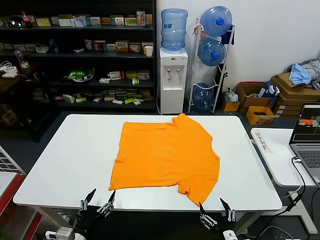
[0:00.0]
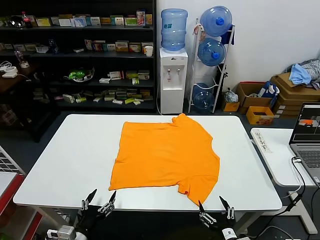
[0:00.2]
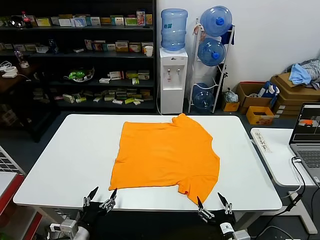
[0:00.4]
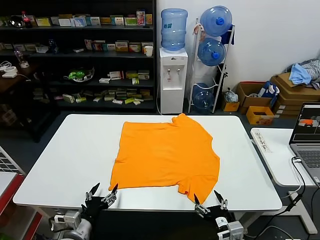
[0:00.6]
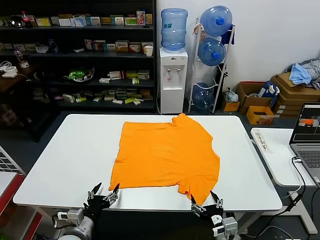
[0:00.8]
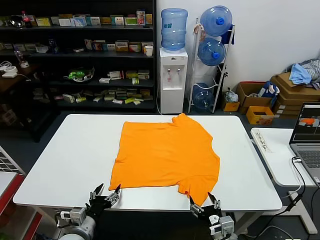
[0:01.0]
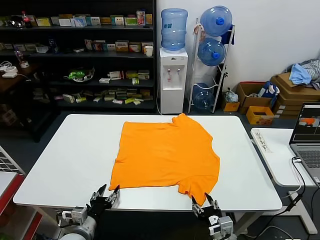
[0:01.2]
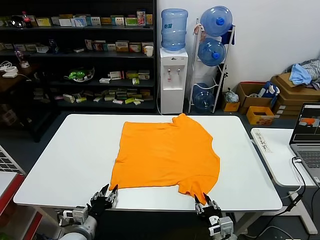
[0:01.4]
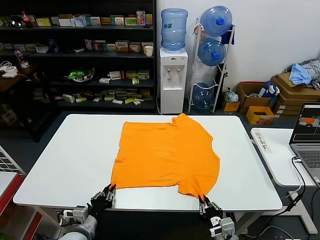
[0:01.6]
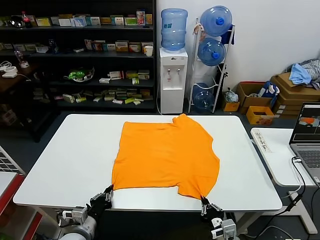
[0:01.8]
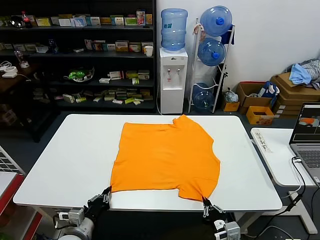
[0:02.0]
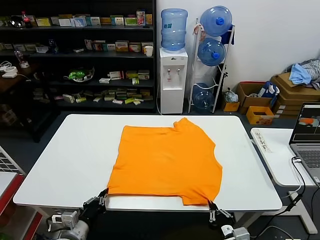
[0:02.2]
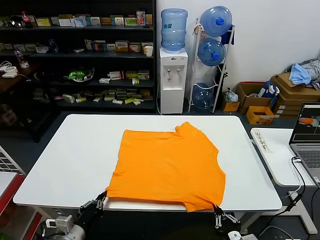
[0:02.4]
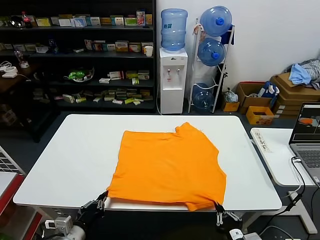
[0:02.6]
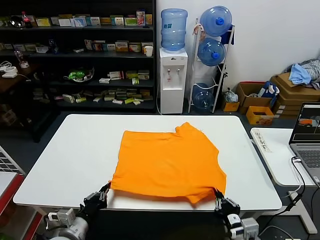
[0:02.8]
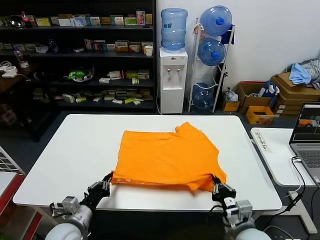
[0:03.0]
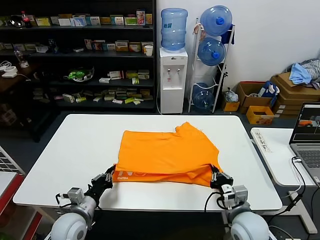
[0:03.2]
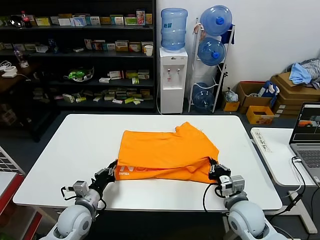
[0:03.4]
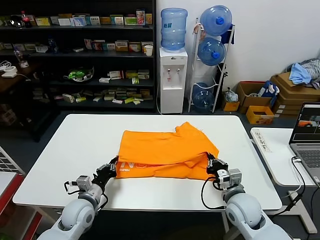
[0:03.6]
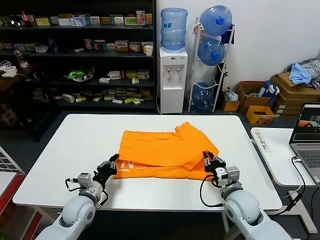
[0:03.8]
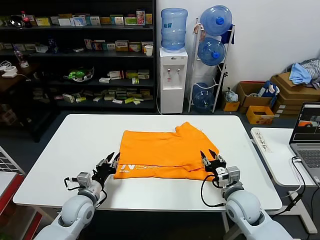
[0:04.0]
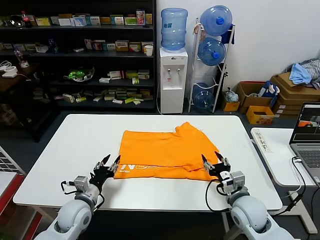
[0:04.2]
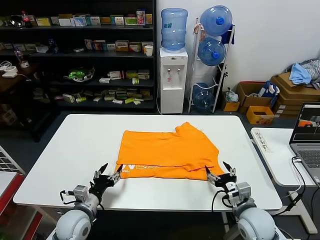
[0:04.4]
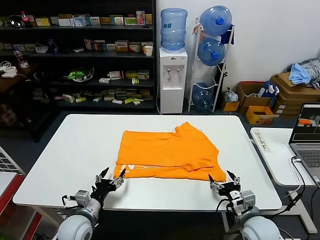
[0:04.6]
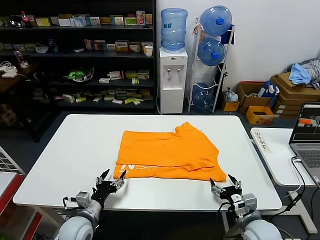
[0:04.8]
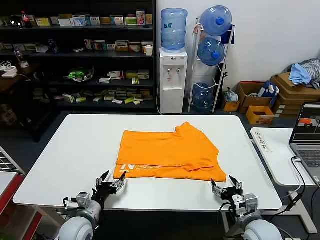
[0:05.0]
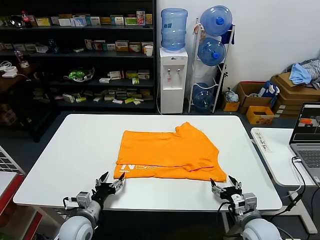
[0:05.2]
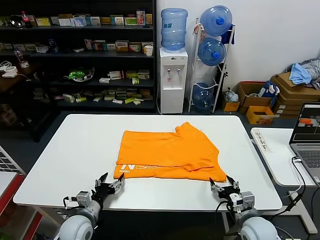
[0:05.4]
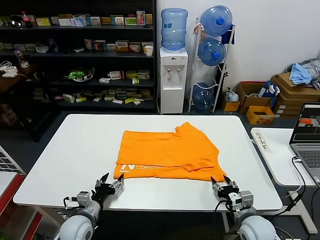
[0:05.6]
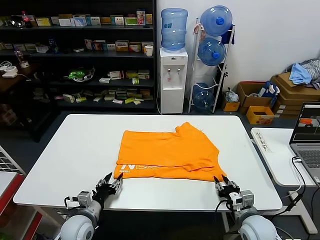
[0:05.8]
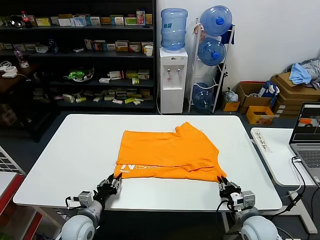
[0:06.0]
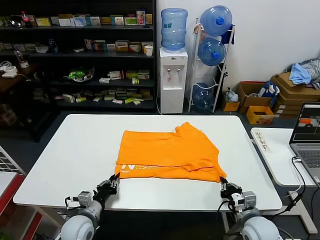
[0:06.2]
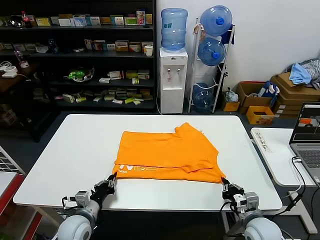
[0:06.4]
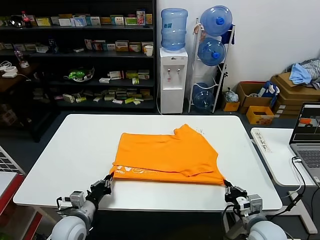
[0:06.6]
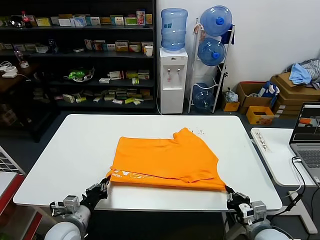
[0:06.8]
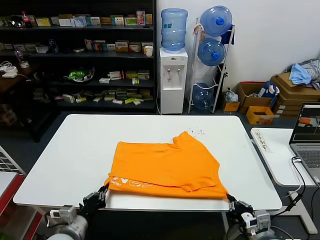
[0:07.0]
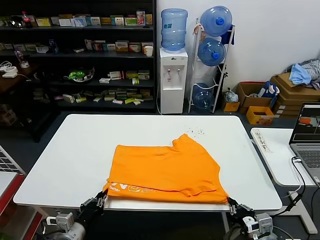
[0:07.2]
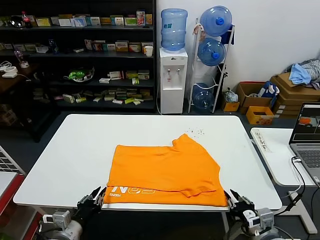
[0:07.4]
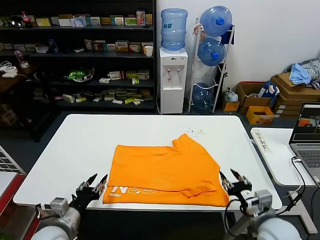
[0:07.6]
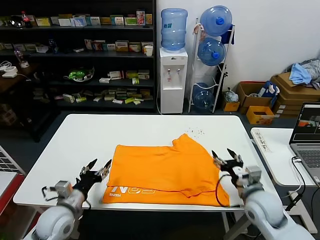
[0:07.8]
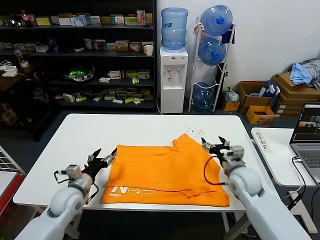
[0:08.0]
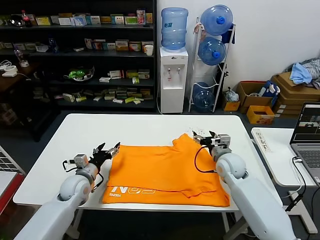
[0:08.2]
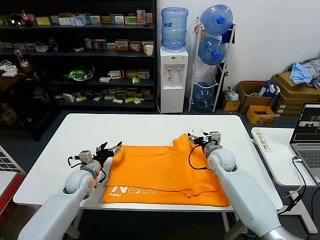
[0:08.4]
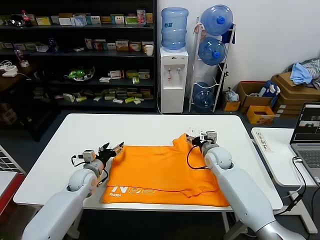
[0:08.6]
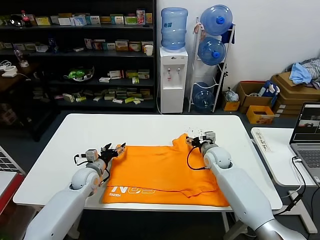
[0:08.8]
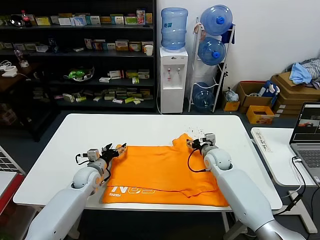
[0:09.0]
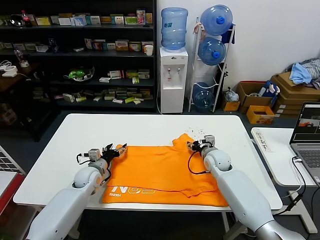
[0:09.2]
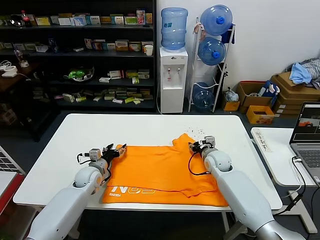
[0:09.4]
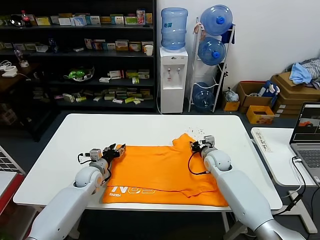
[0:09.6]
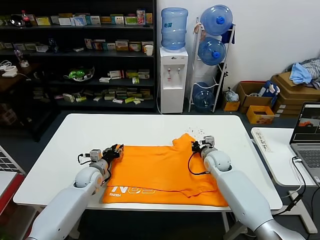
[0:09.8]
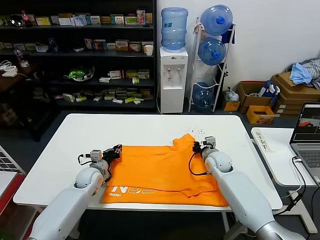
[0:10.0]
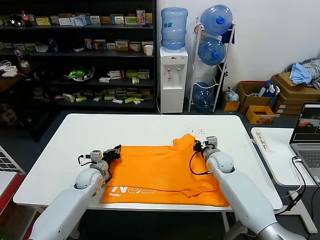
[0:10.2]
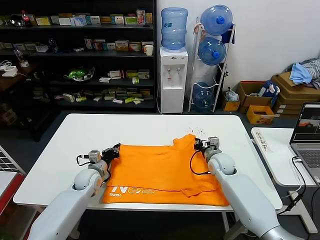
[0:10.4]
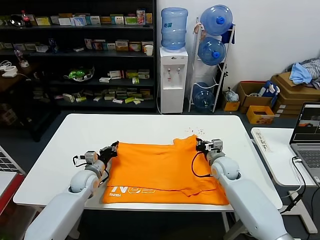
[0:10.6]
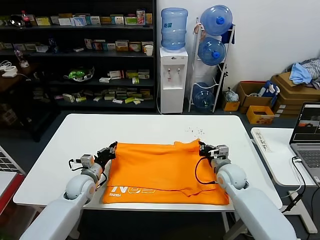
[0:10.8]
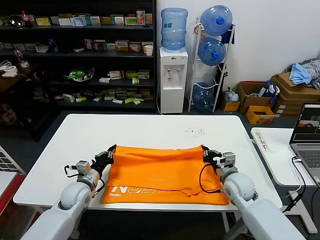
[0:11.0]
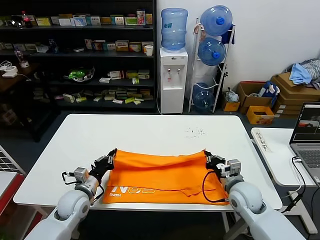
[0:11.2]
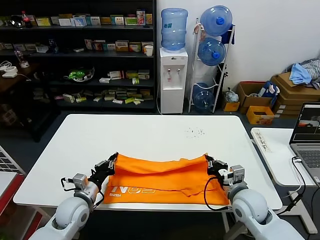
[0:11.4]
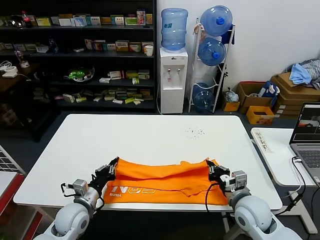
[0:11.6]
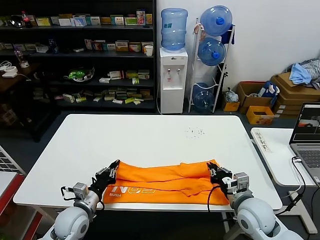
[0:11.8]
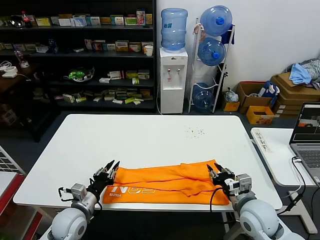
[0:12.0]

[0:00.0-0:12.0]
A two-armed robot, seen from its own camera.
Task of the whole recording: fold and organize the clothes.
Step, 0:00.0 to 0:01.8: use both grippers simultaneously to clamp the lower edge of the clothing fabric.
Step, 0:02.0 to 0:03.8: use both grippers to drag the lower edge of the fabric forward and fold it over the upper edge.
Step, 0:04.0 to 0:07.2: Drag the clothes downward with both gripper.
Step, 0:07.4 to 0:10.2: use both grippers simultaneously to clamp the upper edge of the clothing fabric.
Step, 0:10.4 to 0:12.0: use both grippers to drag the upper edge of the fabric backward and fold it over the lower edge.
0:01.6 to 0:03.0: The right gripper heads upward and forward, covering approximately 10 cm, while the left gripper shifts some 5 cm upward.
0:03.0 to 0:04.4: The right gripper travels forward and back again, some 10 cm each way, and opens up, while the left gripper opens.
0:04.4 to 0:06.0: The right gripper closes up. The left gripper closes its fingers.
0:06.0 to 0:07.6: The left gripper is displaced upward and backward by some 10 cm, and closes, then reopens, while the right gripper goes approximately 10 cm upward, and opens.
0:07.6 to 0:09.0: Both grippers travel together forward, approximately 25 cm. The right gripper opens. Meanwhile the left gripper opens its fingers.
0:09.0 to 0:10.4: The left gripper closes up. The right gripper closes its fingers.
0:10.4 to 0:12.0: Both grippers travel together backward, about 20 cm. The right gripper opens.

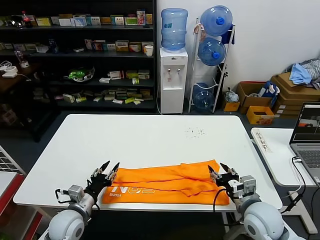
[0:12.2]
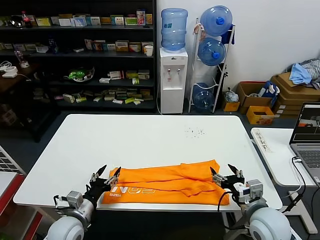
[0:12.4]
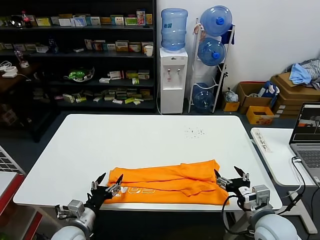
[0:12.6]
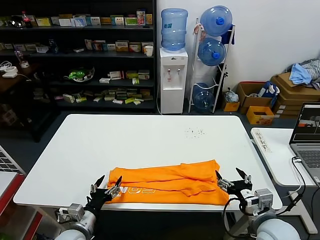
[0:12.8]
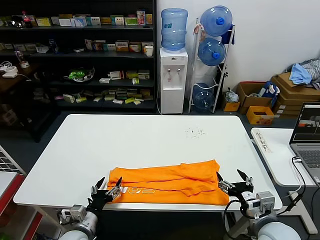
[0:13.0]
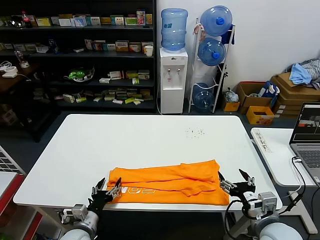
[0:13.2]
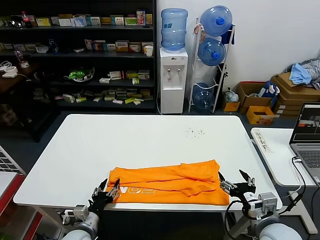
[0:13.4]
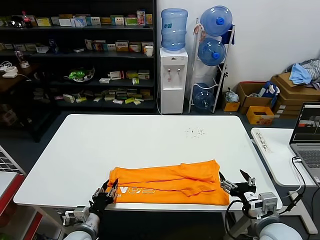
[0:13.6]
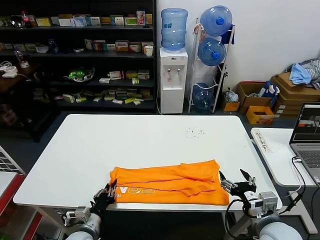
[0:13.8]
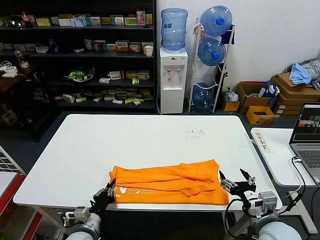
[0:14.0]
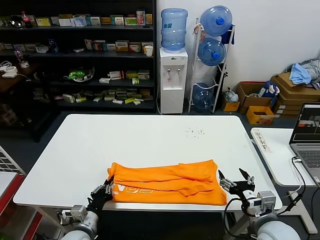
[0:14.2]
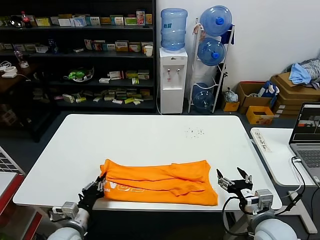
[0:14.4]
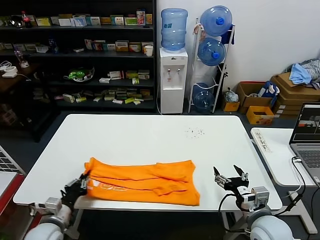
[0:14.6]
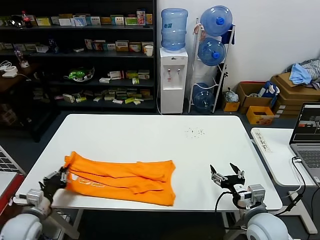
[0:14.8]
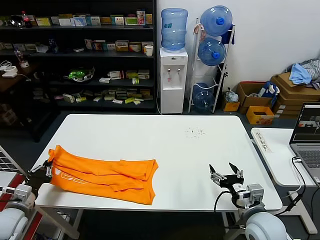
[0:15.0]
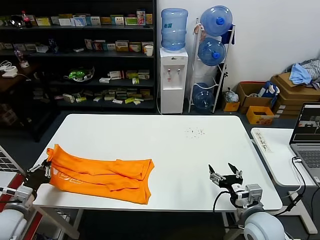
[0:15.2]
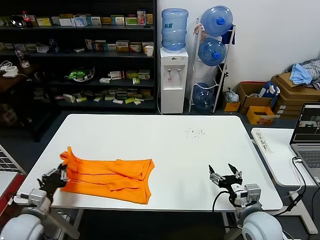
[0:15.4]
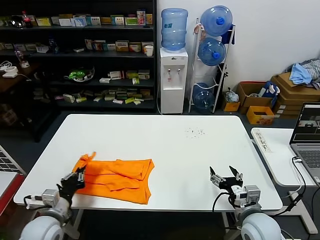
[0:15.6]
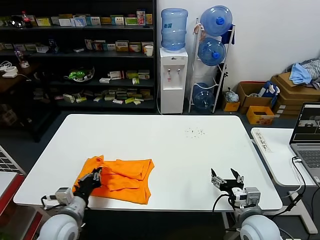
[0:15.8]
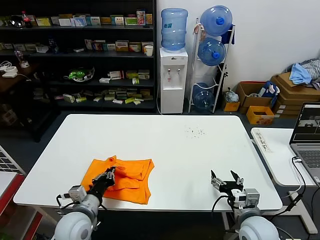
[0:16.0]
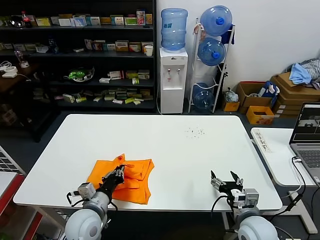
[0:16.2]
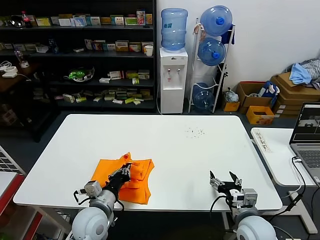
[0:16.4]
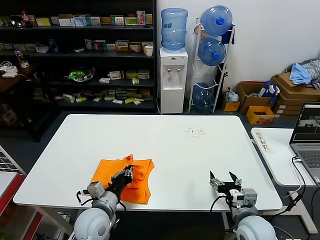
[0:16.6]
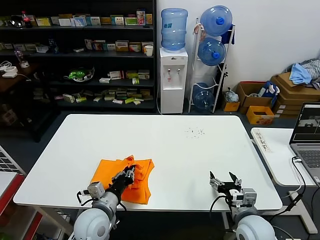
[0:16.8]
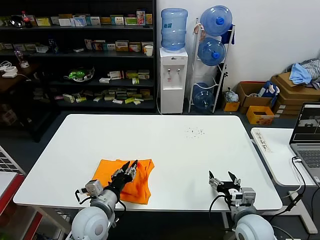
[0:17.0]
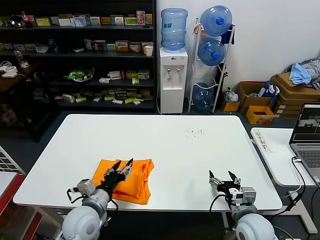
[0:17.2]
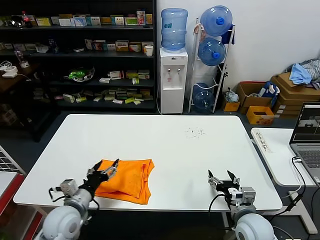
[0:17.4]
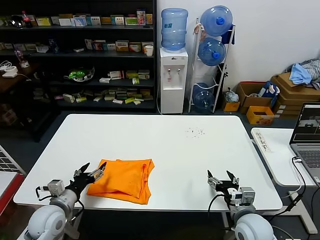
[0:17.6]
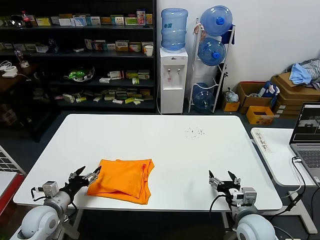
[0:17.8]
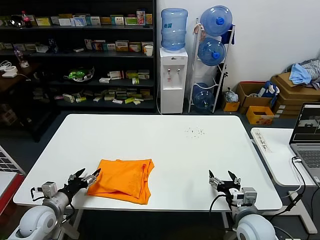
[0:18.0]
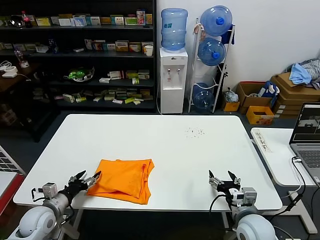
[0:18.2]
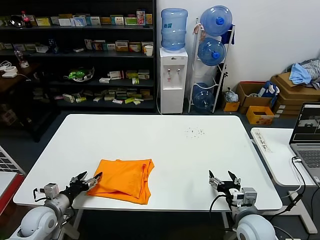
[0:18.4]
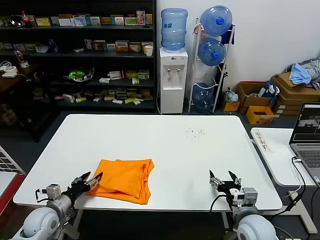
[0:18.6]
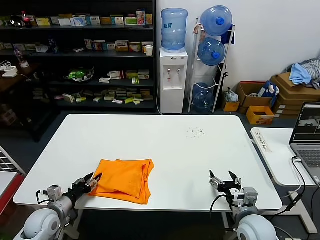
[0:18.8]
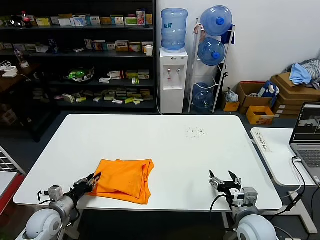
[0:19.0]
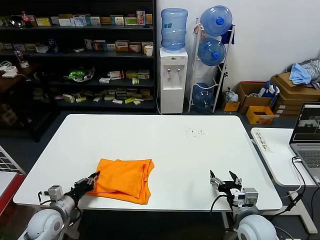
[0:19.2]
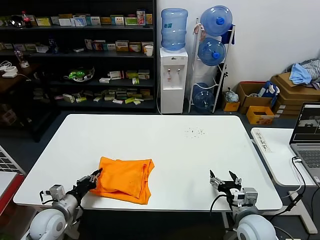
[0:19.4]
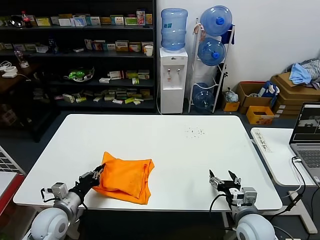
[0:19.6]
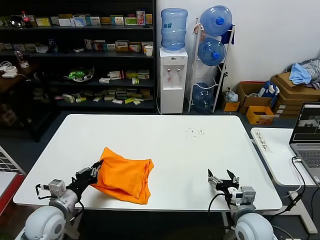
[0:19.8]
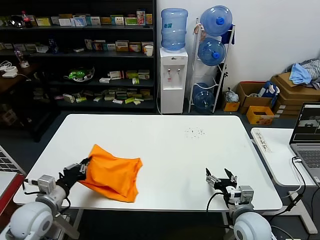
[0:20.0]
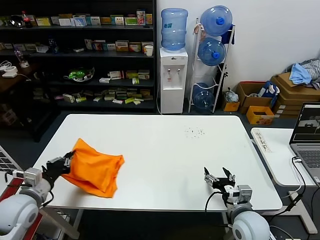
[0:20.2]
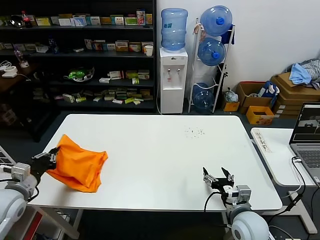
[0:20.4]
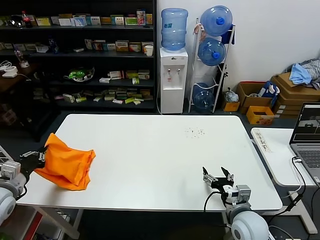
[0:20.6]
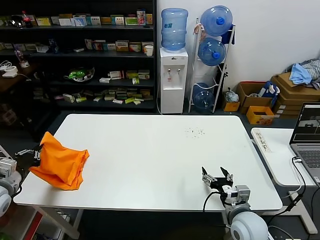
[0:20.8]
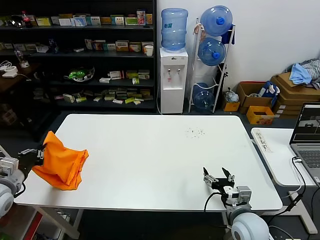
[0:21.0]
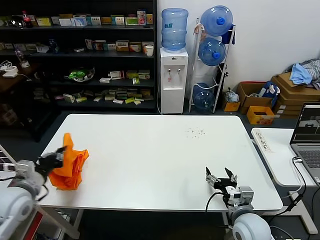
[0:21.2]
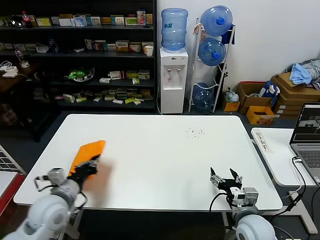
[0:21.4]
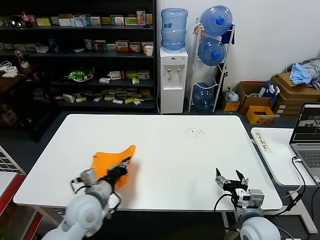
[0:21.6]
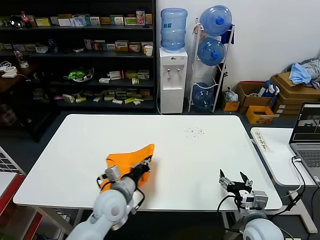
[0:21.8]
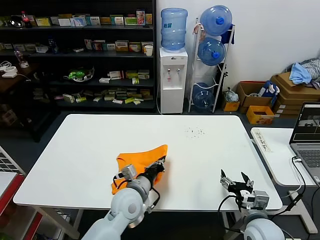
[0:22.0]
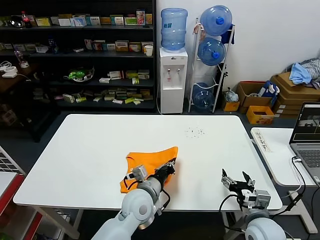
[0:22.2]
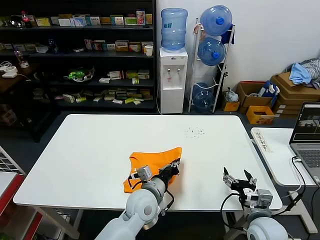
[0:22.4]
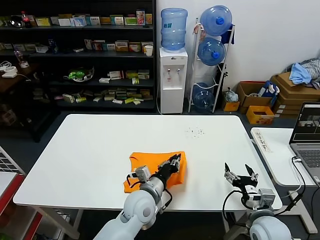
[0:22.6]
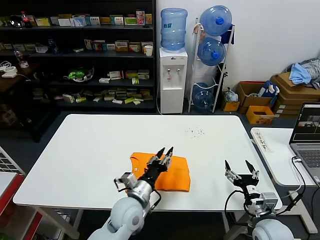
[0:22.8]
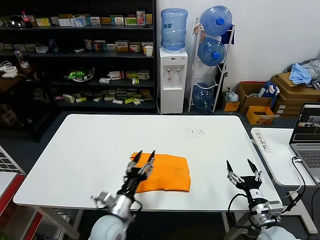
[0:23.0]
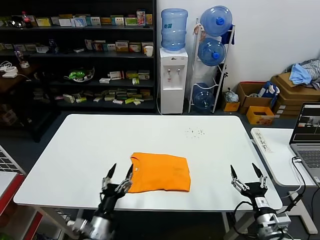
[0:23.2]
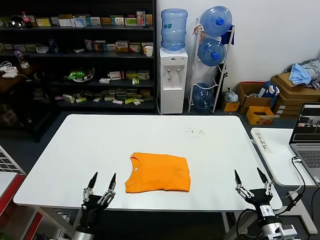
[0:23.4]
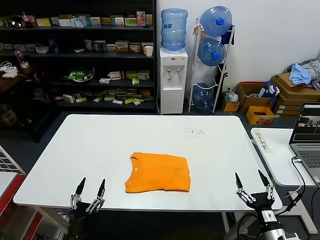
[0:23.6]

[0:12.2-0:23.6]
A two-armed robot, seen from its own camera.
Task of the whole recording: fold and organize the clothes.
Step, 0:12.2 to 0:13.8: use the left gripper to clamp the left edge of the fabric.
Step, 0:14.2 to 0:17.0: use the left gripper to drag the left edge of the fabric to the left and folds it over the right edge.
Step, 0:17.4 to 0:22.6: Flip the folded clothes over with left gripper.
0:12.2 to 0:13.6: The left gripper shifts some 5 cm downward, and opens and closes again. The right gripper shifts roughly 5 cm backward.
0:13.6 to 0:15.0: The left gripper travels to the left and upward by approximately 20 cm, and closes its fingers.
0:15.0 to 0:16.4: The left gripper heads to the right, covering roughly 25 cm.
0:16.4 to 0:17.8: The left gripper heads to the left, covering roughly 15 cm, and opens up.
0:17.8 to 0:19.4: The left gripper closes its fingers.
0:19.4 to 0:20.8: The left gripper is displaced upward and to the left by about 20 cm.
0:20.8 to 0:22.2: The left gripper goes some 40 cm to the right.
0:22.2 to 0:23.6: The right gripper is displaced backward and to the right by approximately 10 cm; the left gripper goes approximately 30 cm to the left, backward and downward, and opens.
